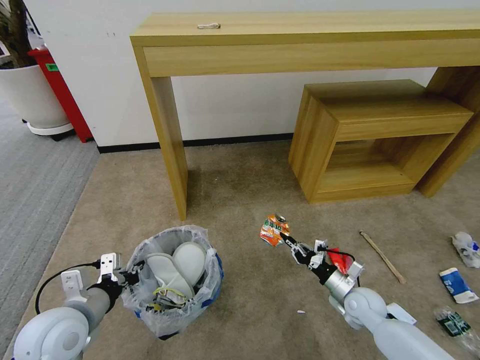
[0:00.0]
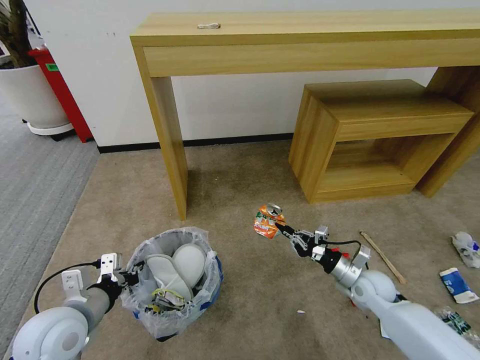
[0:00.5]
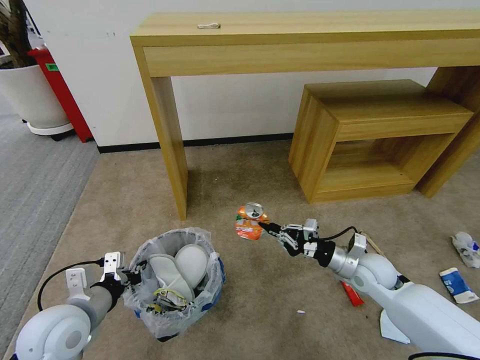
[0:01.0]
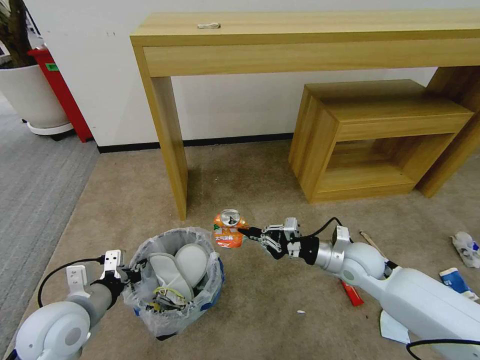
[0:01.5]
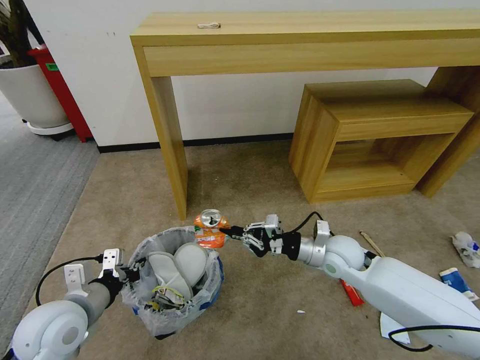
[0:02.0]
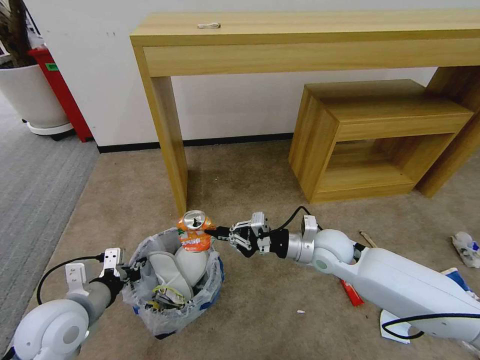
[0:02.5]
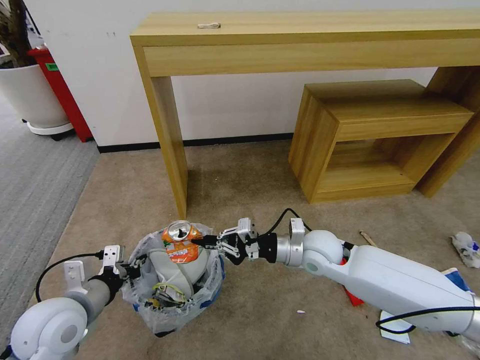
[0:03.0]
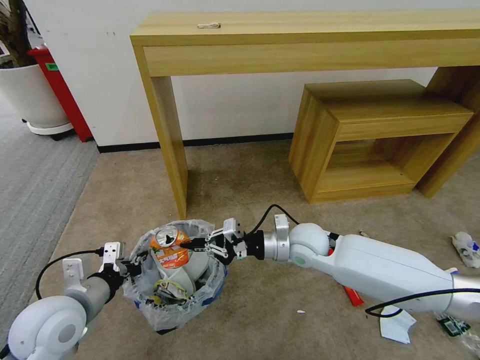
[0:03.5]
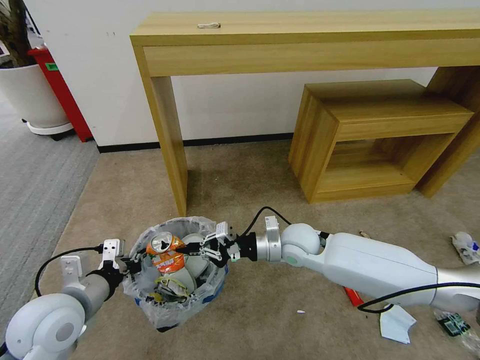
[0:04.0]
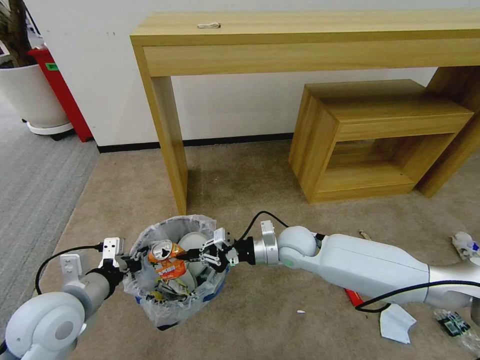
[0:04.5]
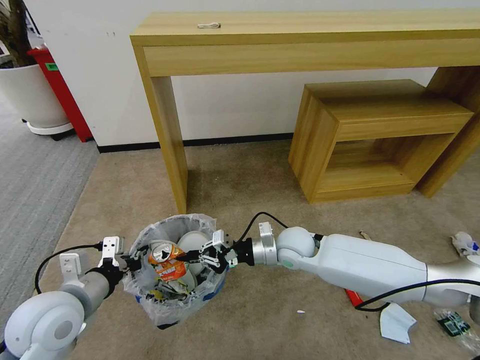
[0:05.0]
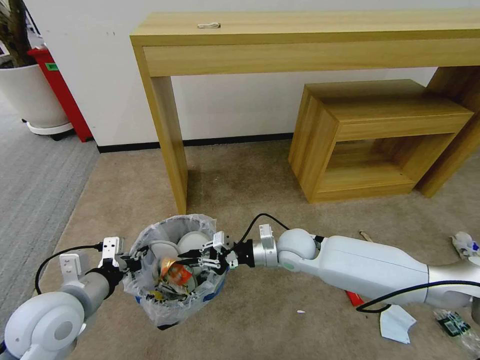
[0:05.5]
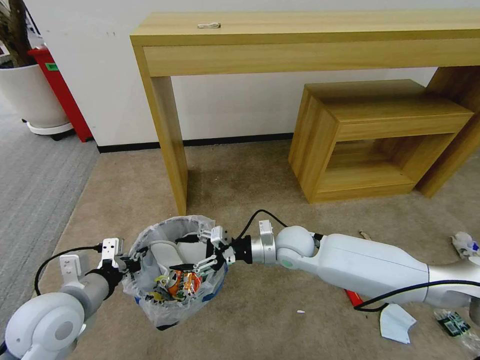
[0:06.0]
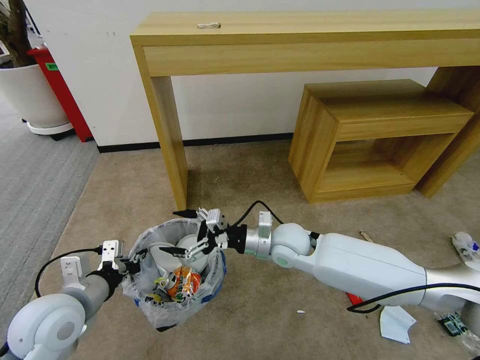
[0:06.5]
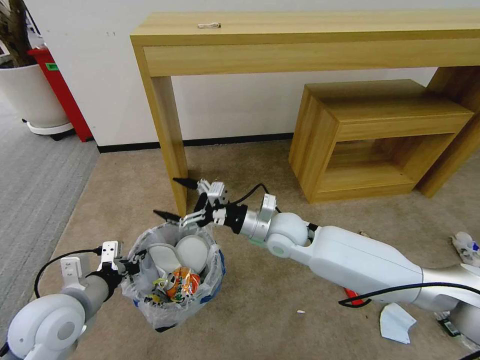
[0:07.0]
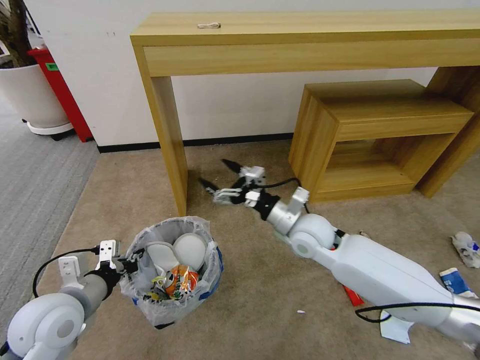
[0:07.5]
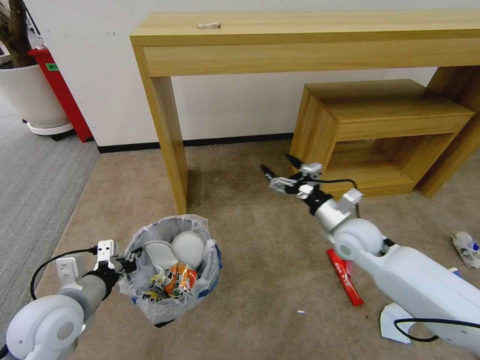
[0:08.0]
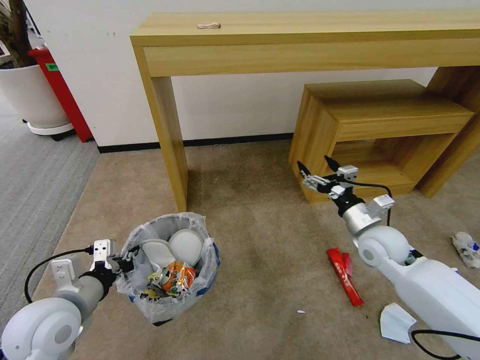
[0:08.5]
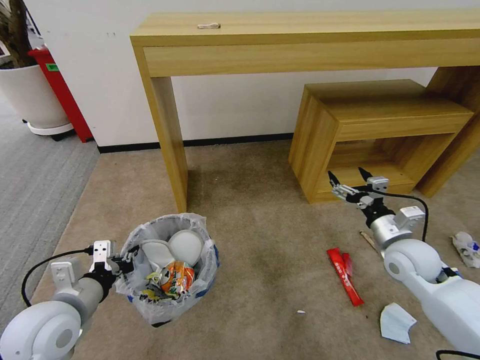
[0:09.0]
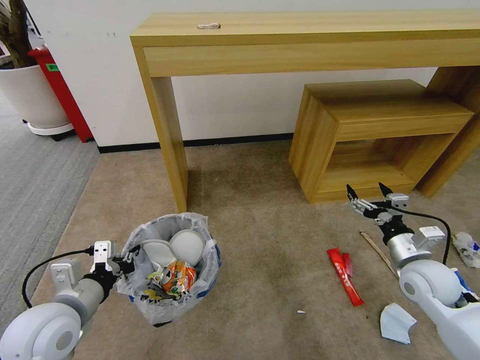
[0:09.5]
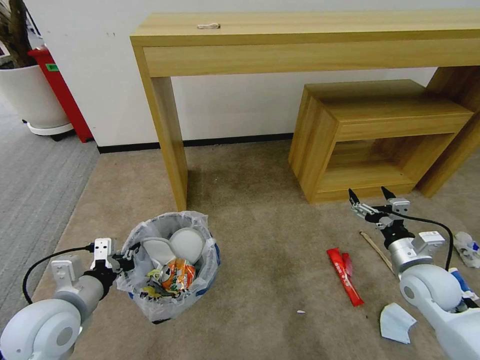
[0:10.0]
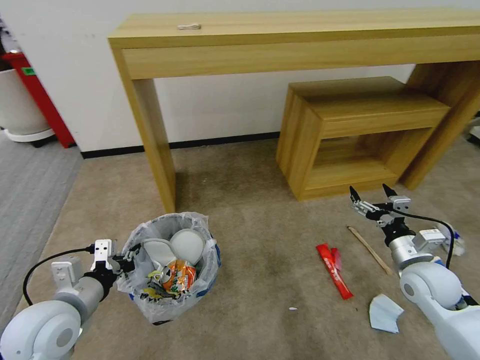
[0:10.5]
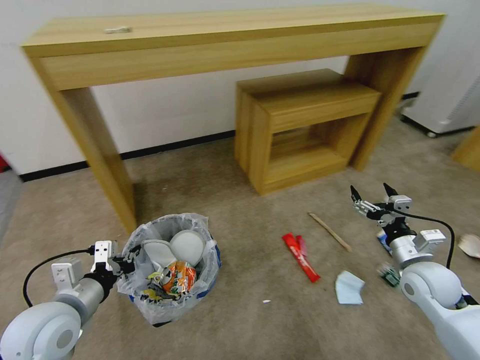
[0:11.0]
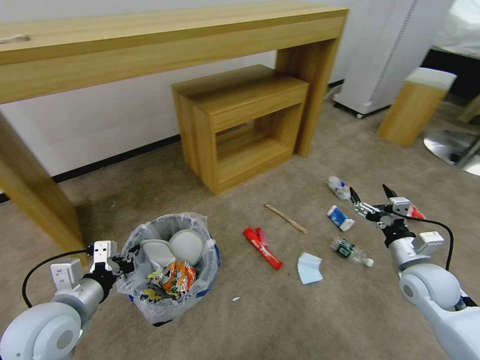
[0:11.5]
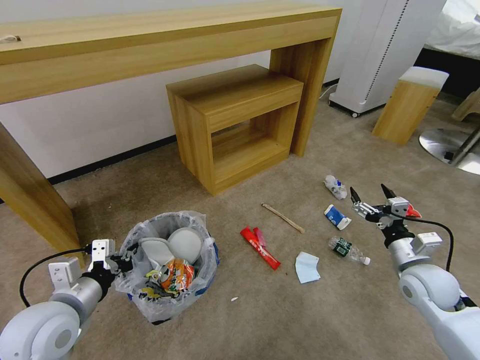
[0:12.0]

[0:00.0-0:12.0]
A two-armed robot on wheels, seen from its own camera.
Task of the whole recording: Pick up the trash bin and place the garbage on the floor into it.
0:00.0 to 0:02.0: The right gripper is displaced upward, to the left and forward by roughly 20 cm.
0:02.0 to 0:04.0: The right gripper goes some 10 cm to the left.
0:04.0 to 0:06.0: The right gripper opens up.
0:06.0 to 0:08.0: The right gripper is displaced to the right by roughly 15 cm.
0:08.0 to 0:10.0: The right gripper goes approximately 15 cm to the right and backward.

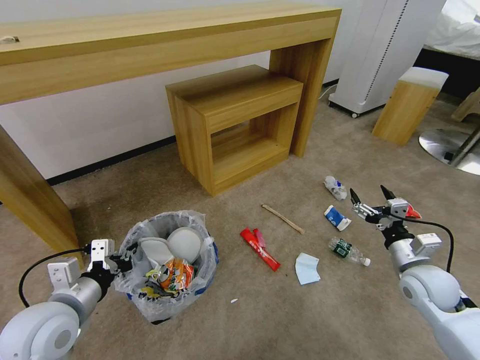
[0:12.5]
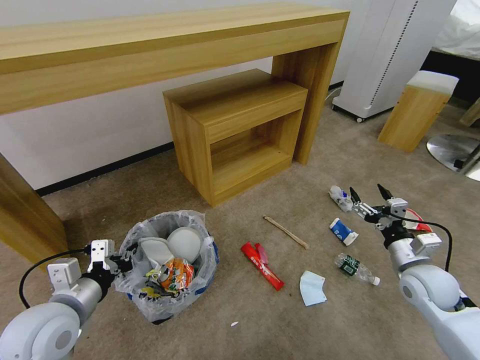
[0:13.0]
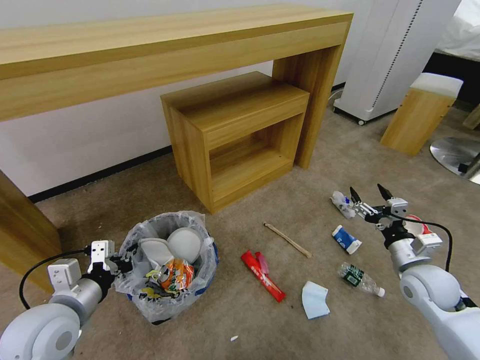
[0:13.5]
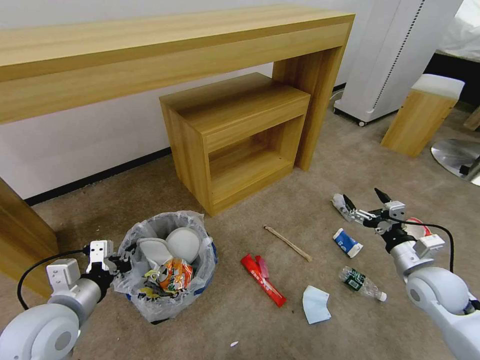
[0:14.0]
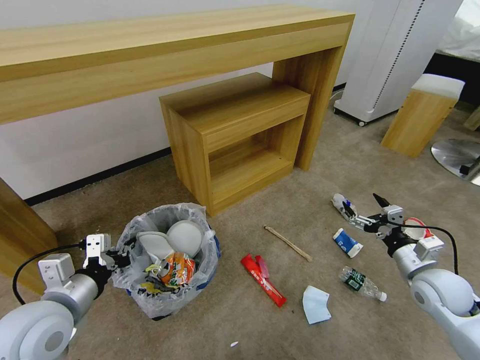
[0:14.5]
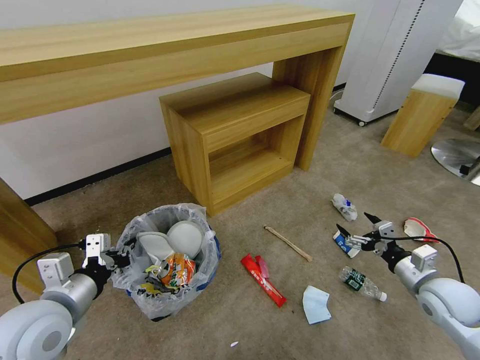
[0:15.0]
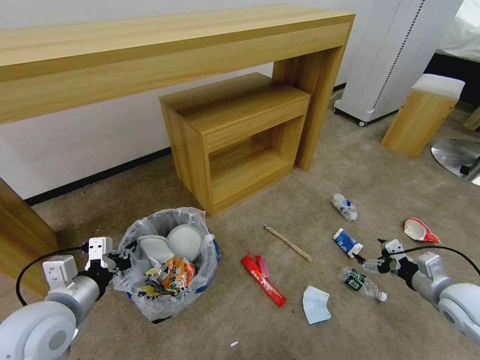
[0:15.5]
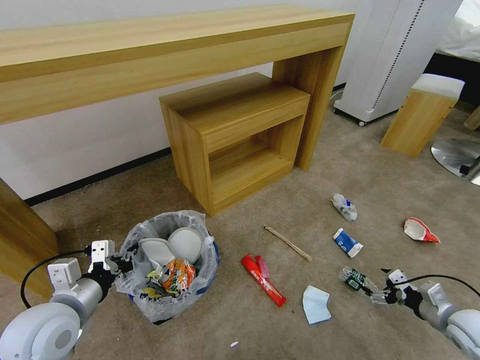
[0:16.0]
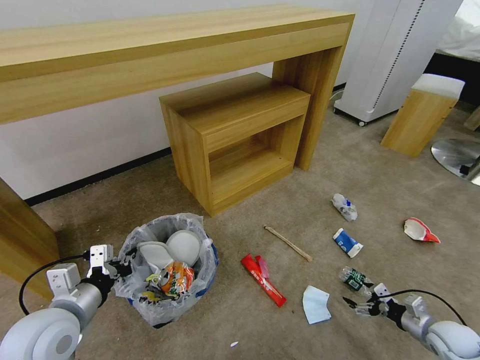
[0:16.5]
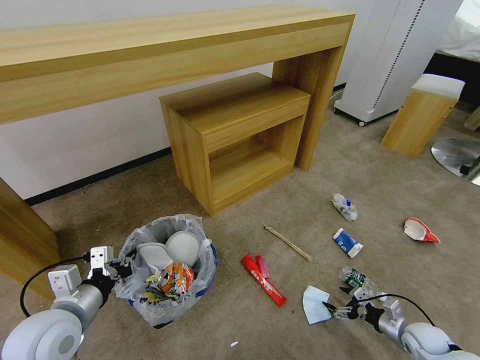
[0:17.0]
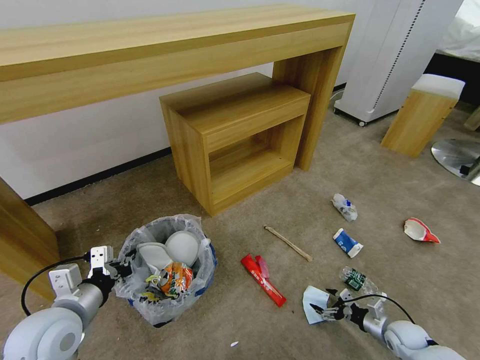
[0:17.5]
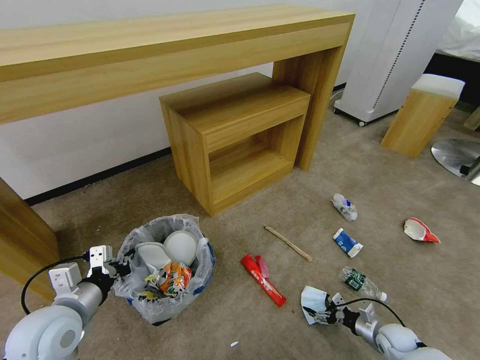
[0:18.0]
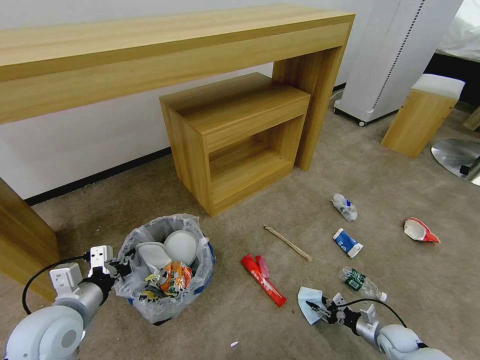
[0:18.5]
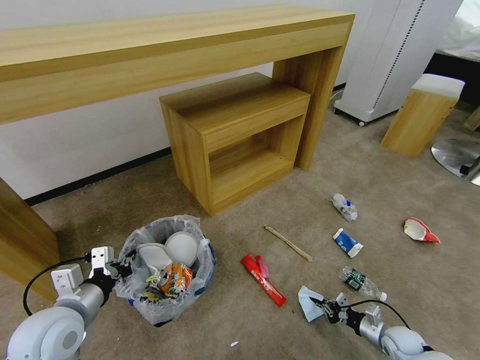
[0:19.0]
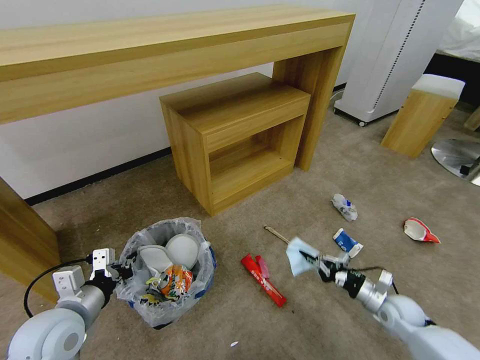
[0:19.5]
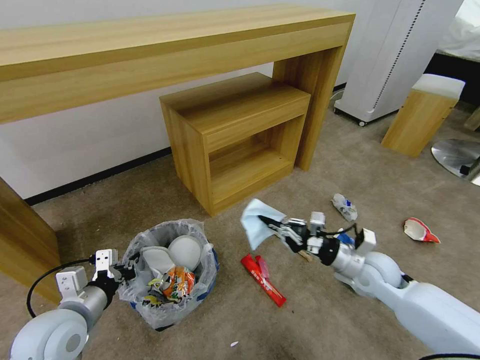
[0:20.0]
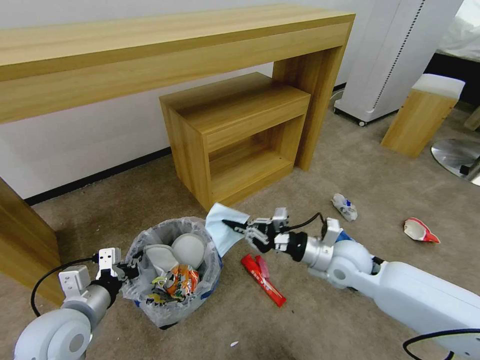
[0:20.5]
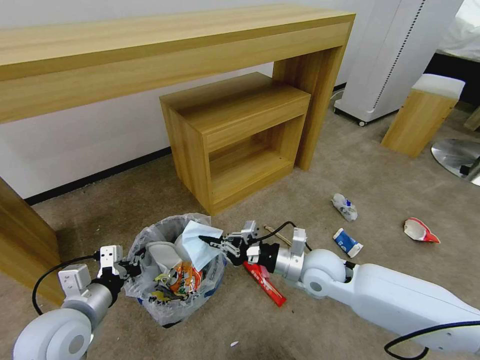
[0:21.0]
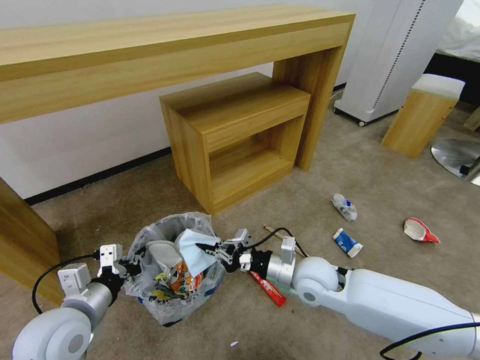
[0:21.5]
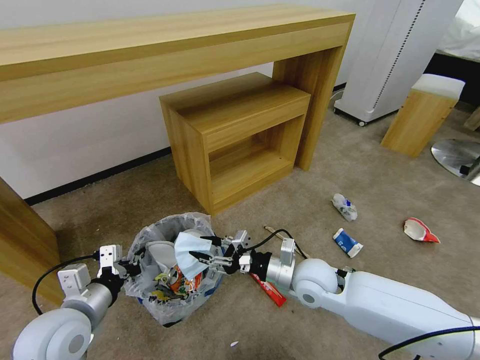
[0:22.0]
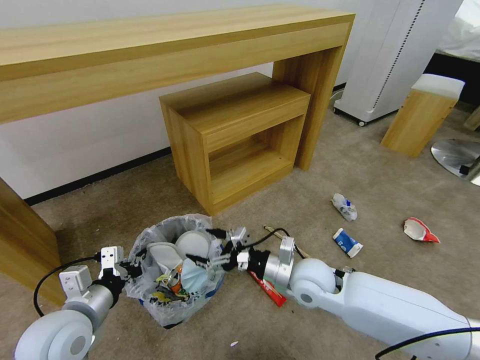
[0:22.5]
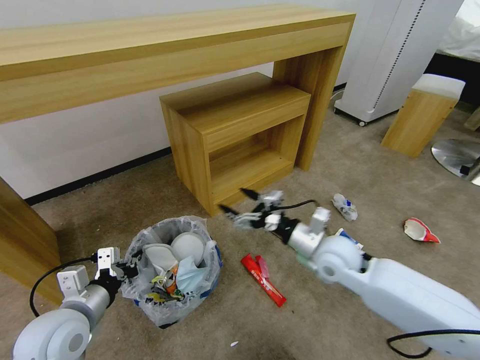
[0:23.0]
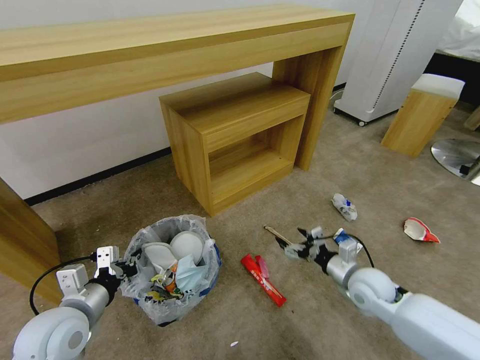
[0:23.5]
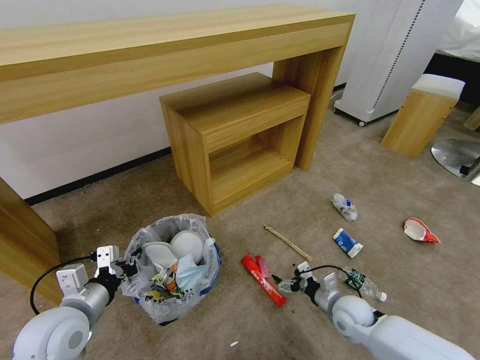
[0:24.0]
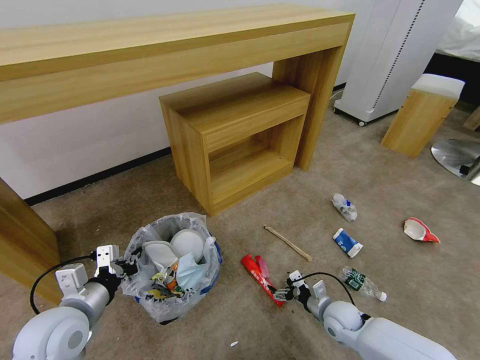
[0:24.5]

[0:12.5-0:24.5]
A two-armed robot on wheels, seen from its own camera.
Task of the whole recording: Pick up the trash bin and place the garbage on the floor into it.
0:14.5 to 0:16.5: The right gripper travels downward, to the right and backward by approximately 20 cm.
0:16.5 to 0:18.5: The right gripper moves downward and to the left, roughly 15 cm, and closes its fingers.
0:18.5 to 0:20.5: The right gripper shifts approximately 35 cm upward and to the left.
0:20.5 to 0:22.5: The right gripper moves to the left, roughly 10 cm, and opens.
0:22.5 to 0:24.5: The right gripper is displaced downward and to the right by some 20 cm.

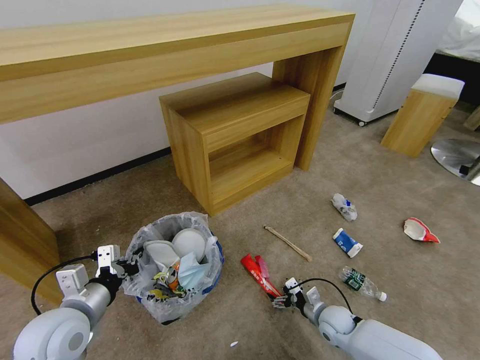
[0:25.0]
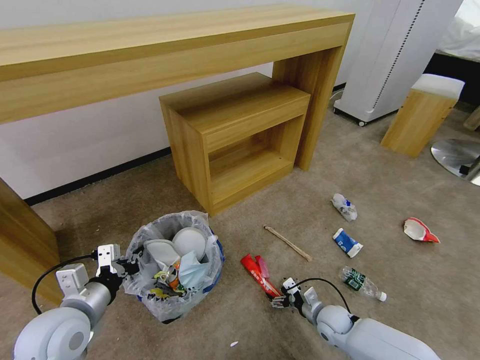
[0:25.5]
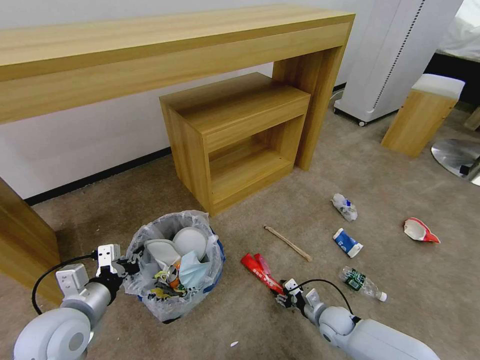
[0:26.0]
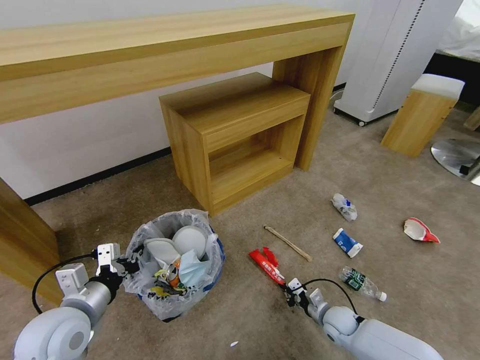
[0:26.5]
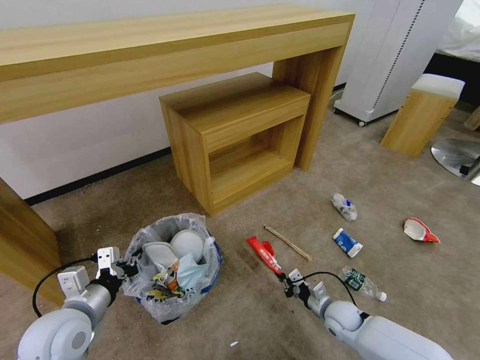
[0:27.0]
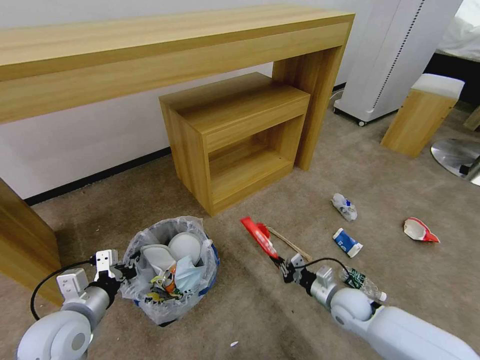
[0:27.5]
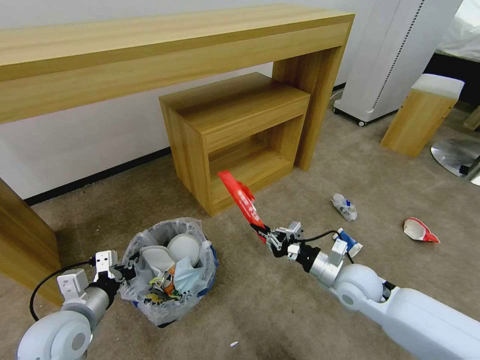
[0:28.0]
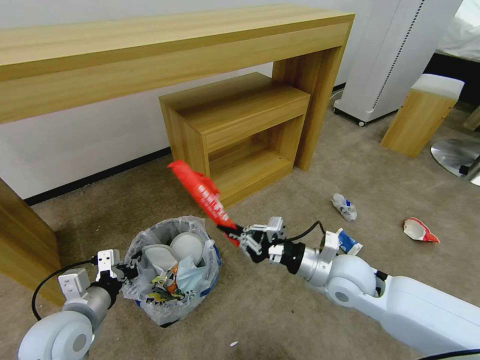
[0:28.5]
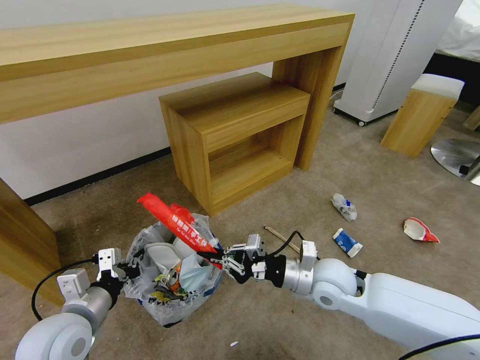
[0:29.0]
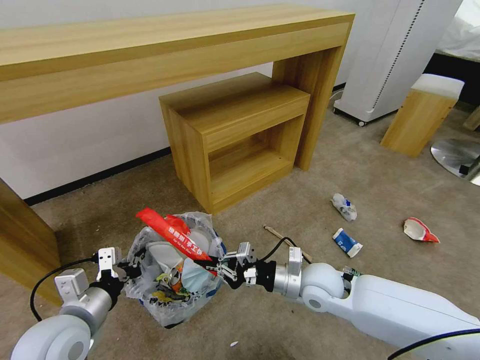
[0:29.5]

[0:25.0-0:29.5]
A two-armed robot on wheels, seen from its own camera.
Task of the whole recording: Pick up the trash bin and place the garbage on the floor into it.
0:25.0 to 0:27.0: The right gripper closes.
0:27.0 to 0:29.5: The right gripper shifts about 25 cm upward and to the left.
